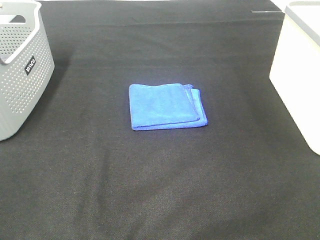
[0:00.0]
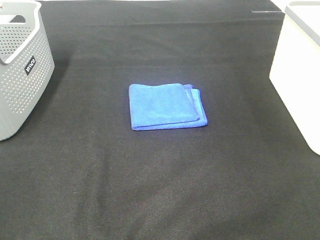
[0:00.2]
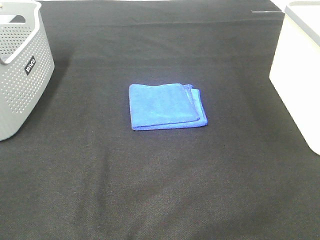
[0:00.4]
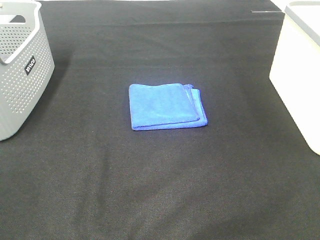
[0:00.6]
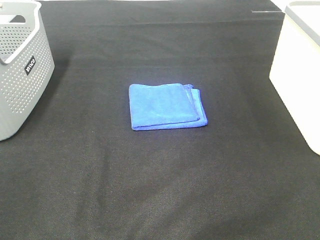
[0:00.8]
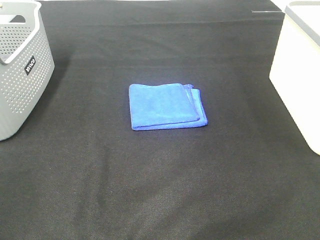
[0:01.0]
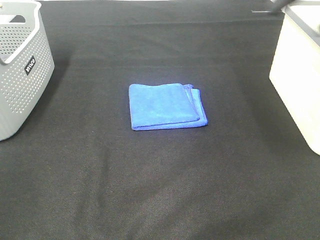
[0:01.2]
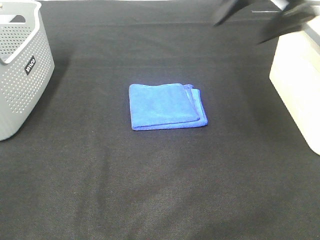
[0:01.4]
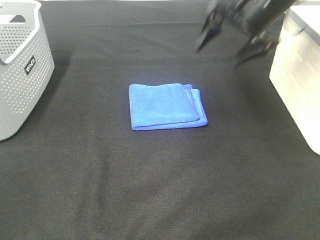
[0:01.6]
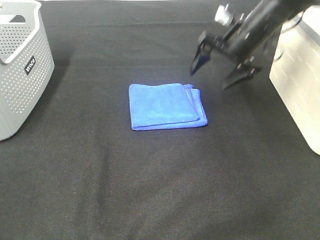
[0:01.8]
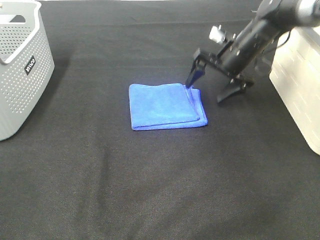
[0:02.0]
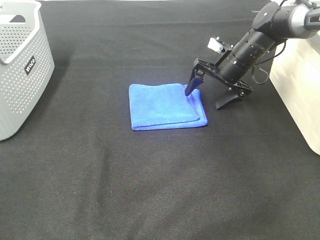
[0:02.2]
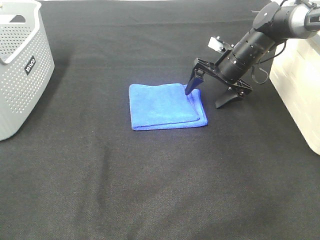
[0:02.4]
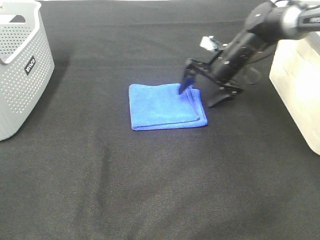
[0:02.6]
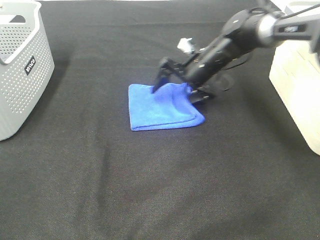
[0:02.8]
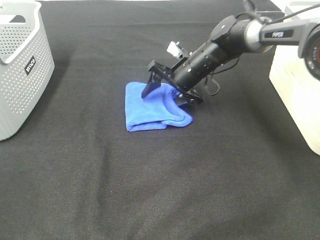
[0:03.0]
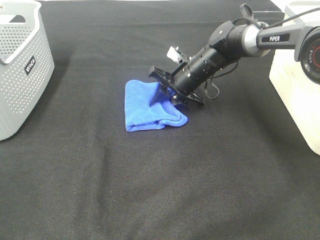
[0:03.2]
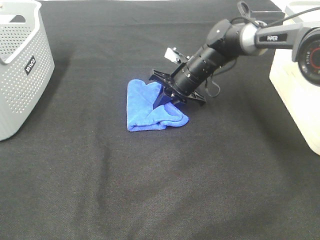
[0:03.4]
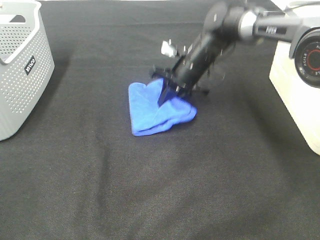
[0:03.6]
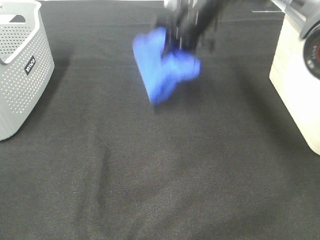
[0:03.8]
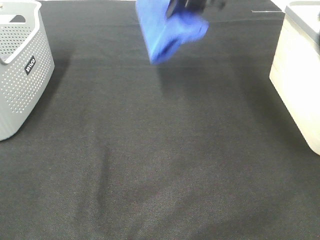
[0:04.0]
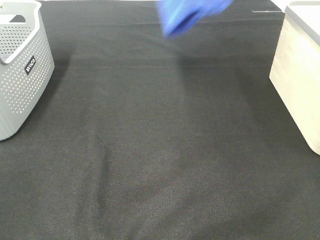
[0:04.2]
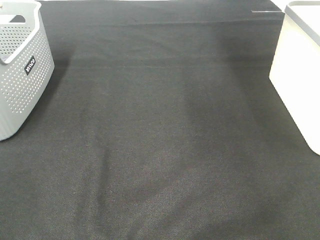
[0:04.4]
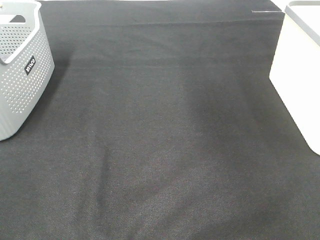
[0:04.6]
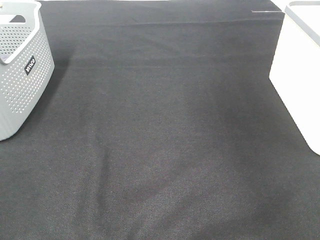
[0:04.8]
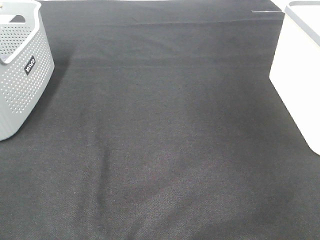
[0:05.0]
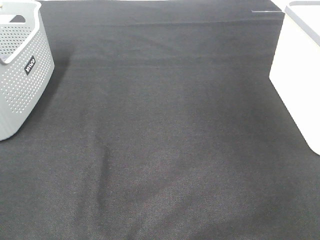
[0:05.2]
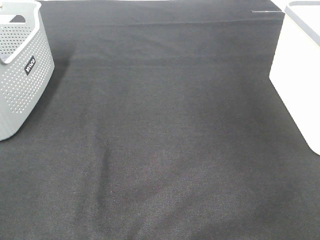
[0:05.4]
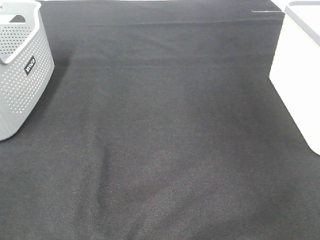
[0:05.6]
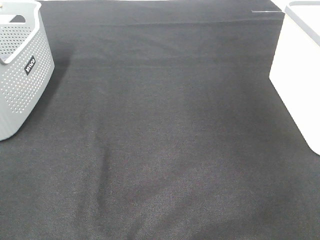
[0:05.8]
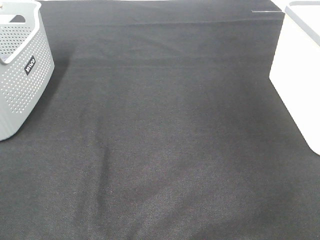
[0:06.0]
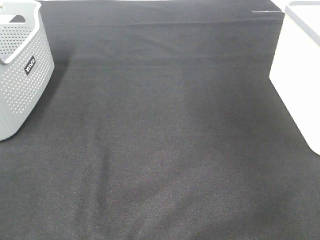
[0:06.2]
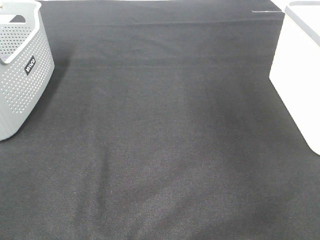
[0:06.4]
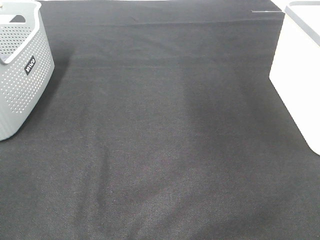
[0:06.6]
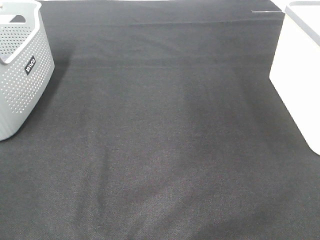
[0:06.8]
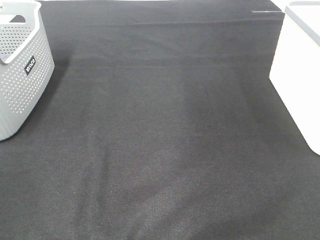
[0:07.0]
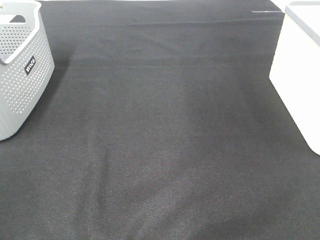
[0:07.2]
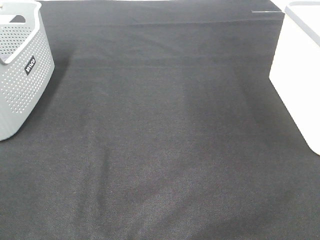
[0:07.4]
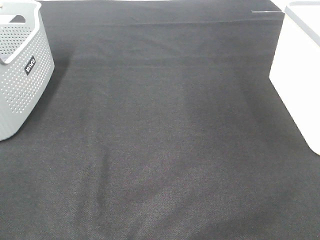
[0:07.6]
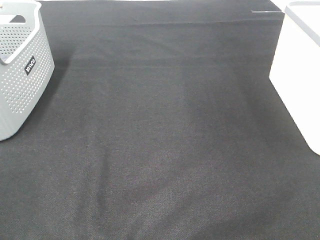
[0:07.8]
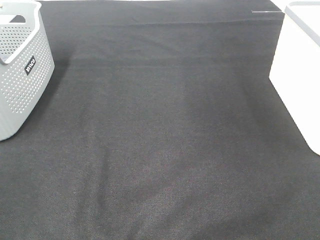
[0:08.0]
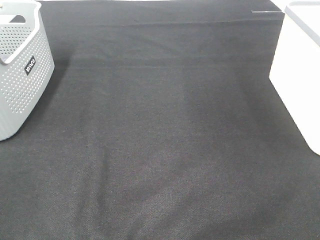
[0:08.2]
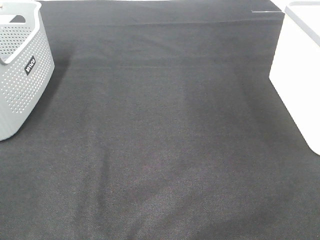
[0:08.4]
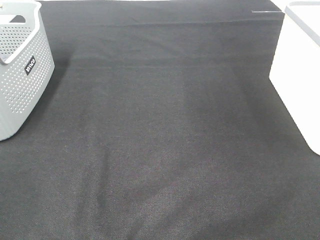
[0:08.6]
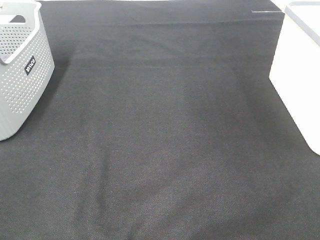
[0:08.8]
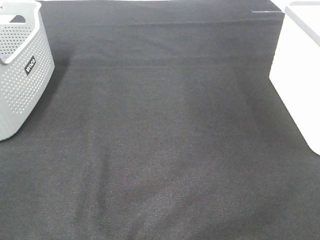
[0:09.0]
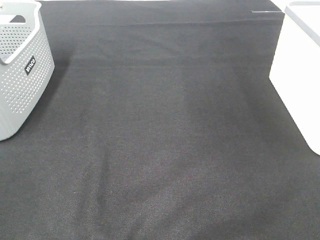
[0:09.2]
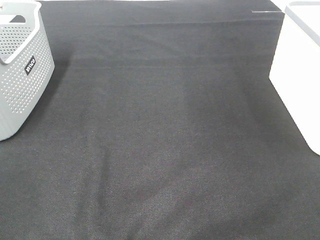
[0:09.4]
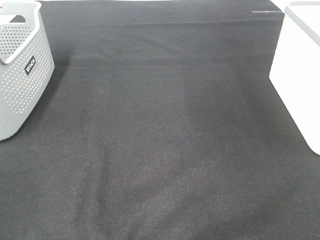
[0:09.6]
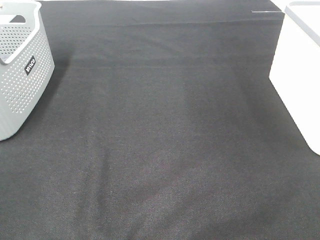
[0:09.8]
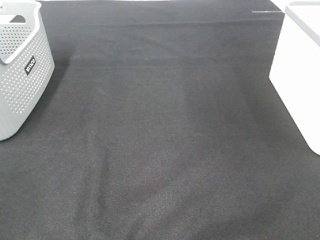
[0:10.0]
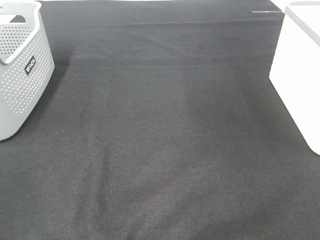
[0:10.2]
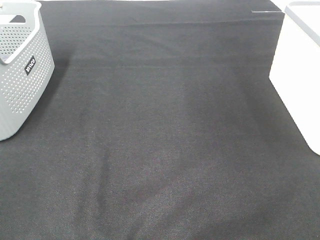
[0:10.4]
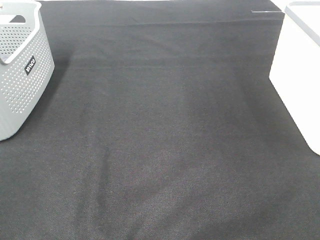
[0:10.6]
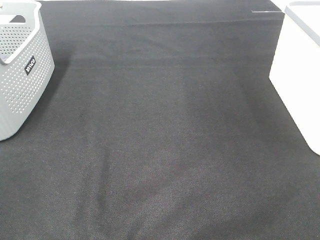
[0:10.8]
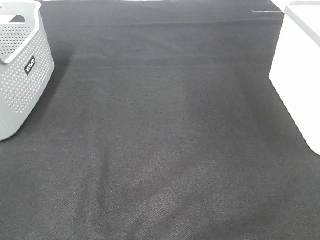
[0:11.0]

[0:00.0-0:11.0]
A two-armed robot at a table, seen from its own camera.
Step, 0:00.0 to 0:03.2: Right hand: grab the folded blue towel.
Step, 0:03.4 to 0:06.0: Right hand: place the blue towel in right basket.
0:00.0 to 0:01.6: The right gripper shifts approximately 40 cm forward.
0:01.6 to 0:03.2: The right gripper shifts about 20 cm downward and to the left, and closes up.
0:03.2 to 0:04.8: The right gripper travels upward and to the right by some 50 cm.
0:09.4 to 0:11.0: Both grippers stay about where they are.
